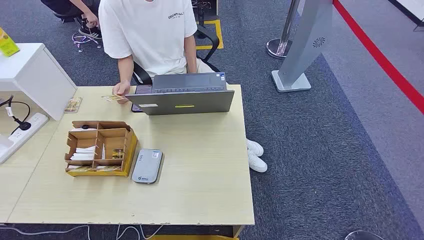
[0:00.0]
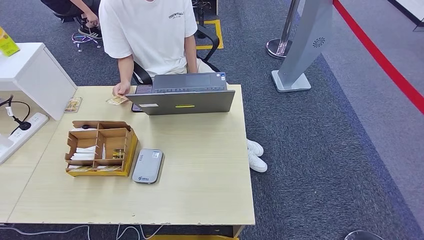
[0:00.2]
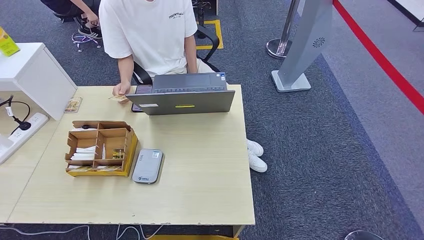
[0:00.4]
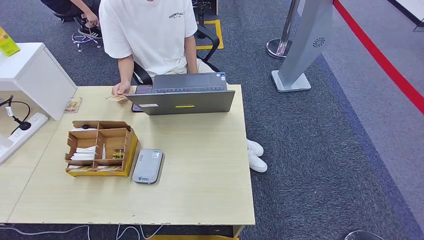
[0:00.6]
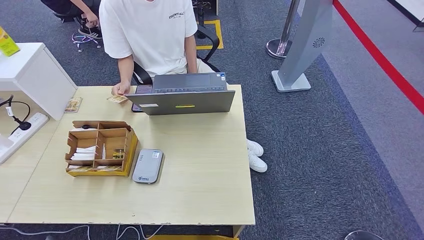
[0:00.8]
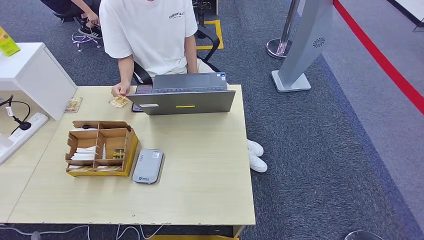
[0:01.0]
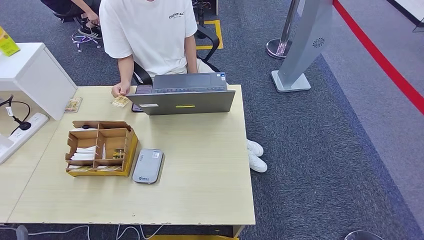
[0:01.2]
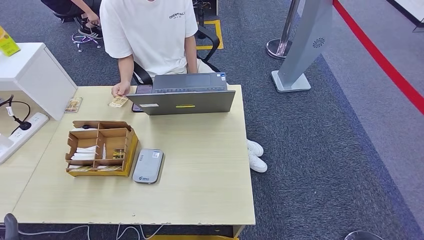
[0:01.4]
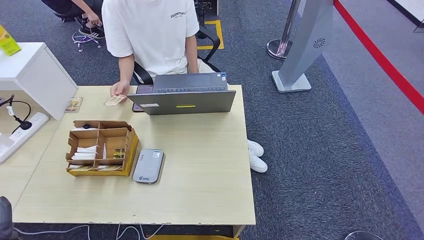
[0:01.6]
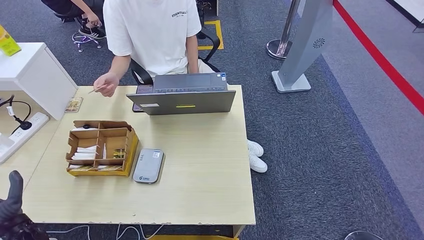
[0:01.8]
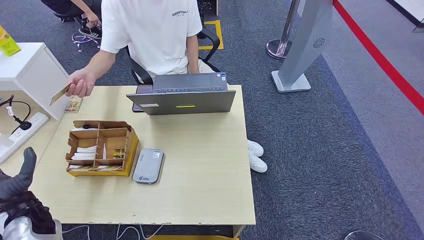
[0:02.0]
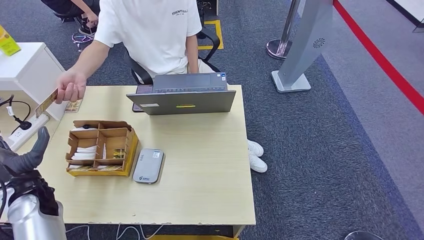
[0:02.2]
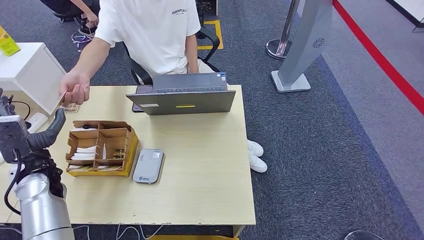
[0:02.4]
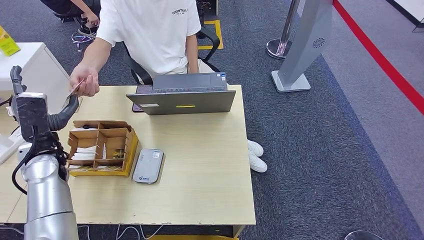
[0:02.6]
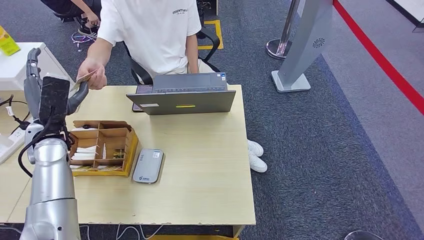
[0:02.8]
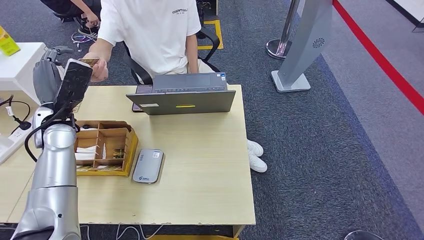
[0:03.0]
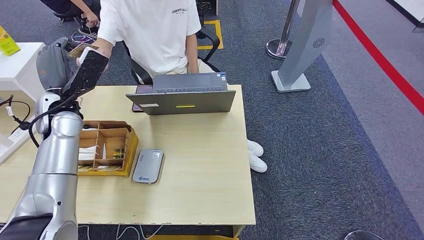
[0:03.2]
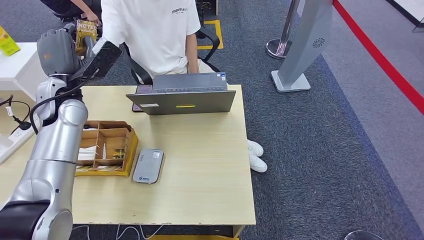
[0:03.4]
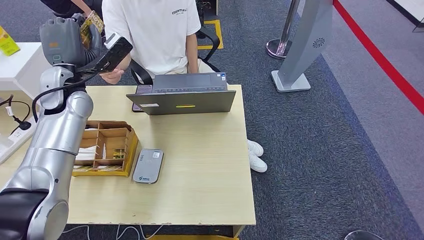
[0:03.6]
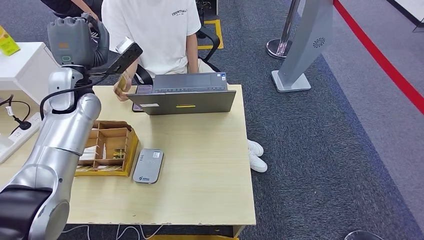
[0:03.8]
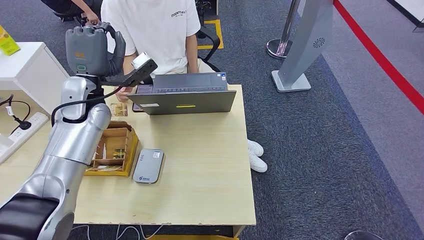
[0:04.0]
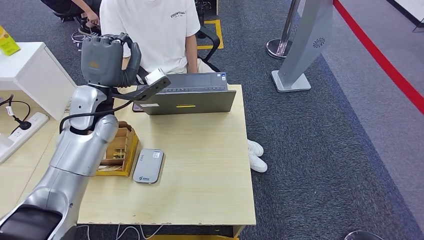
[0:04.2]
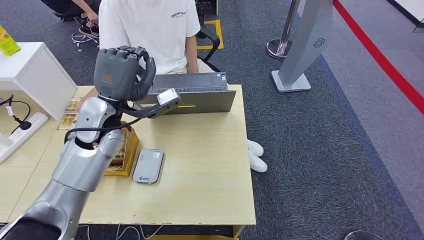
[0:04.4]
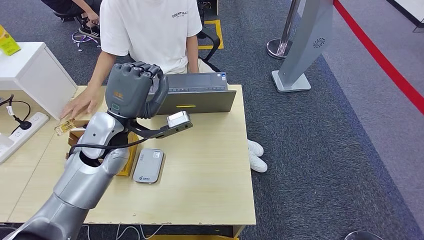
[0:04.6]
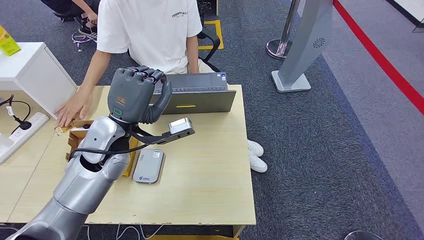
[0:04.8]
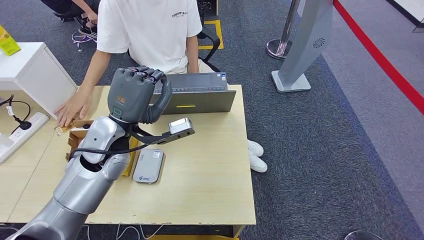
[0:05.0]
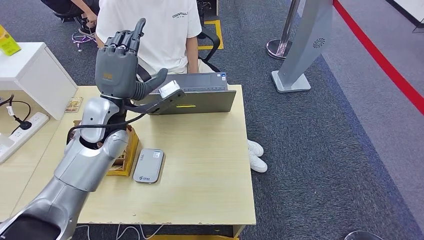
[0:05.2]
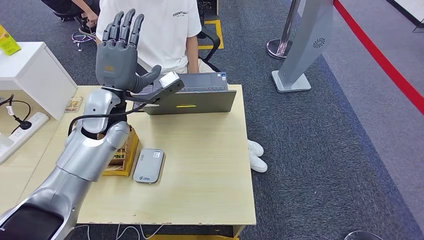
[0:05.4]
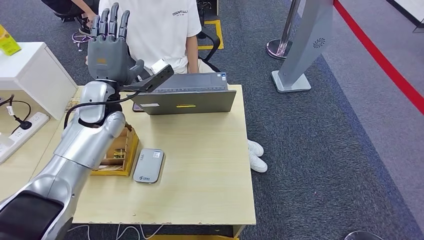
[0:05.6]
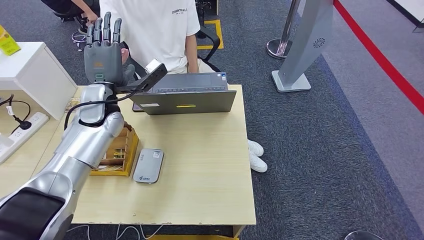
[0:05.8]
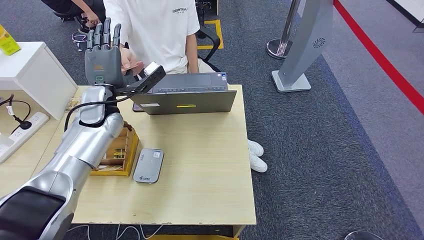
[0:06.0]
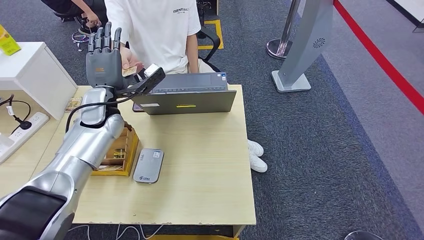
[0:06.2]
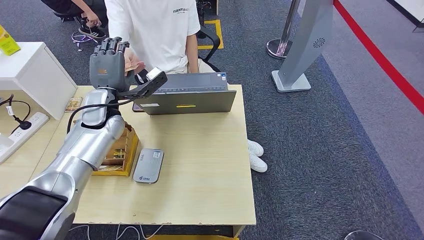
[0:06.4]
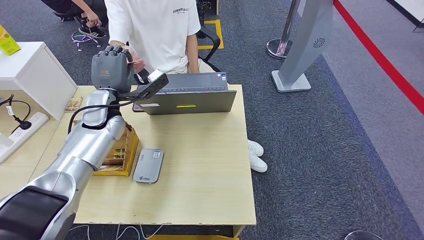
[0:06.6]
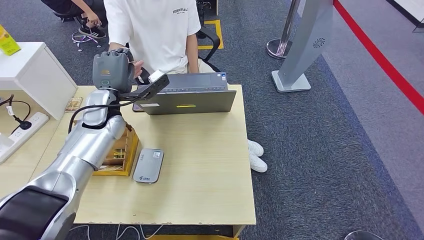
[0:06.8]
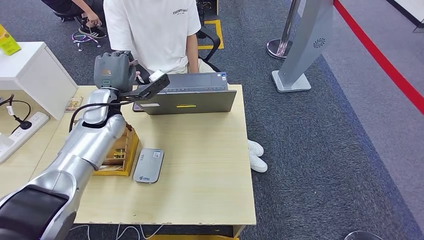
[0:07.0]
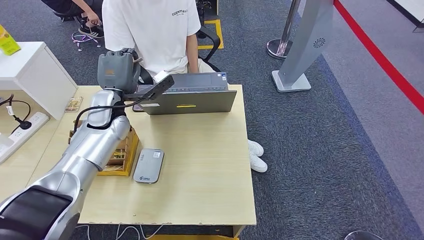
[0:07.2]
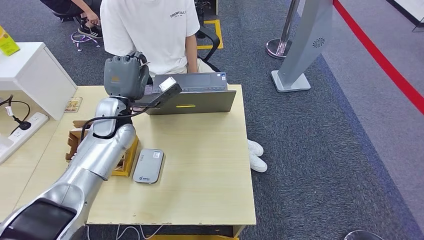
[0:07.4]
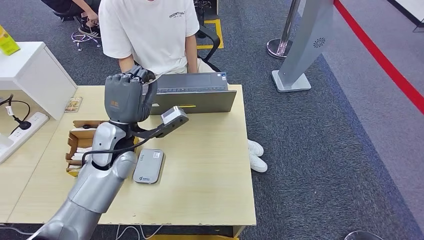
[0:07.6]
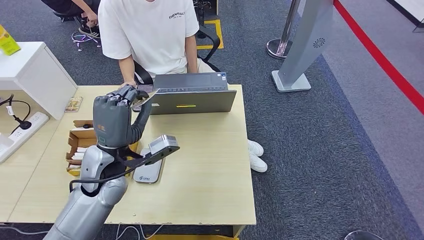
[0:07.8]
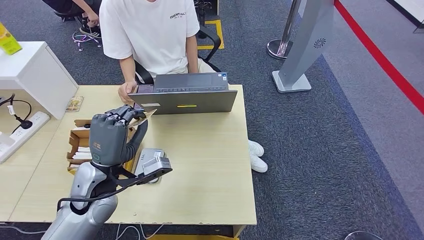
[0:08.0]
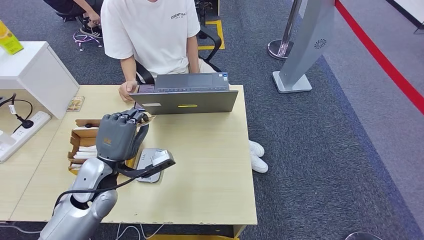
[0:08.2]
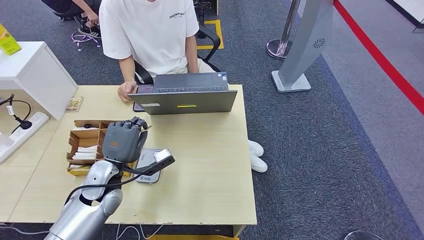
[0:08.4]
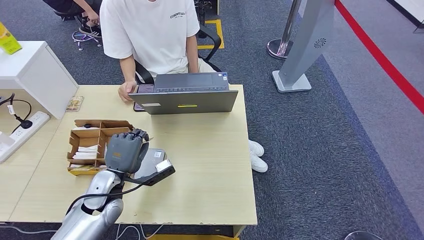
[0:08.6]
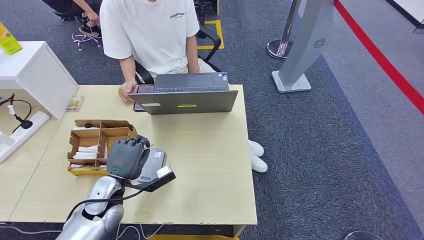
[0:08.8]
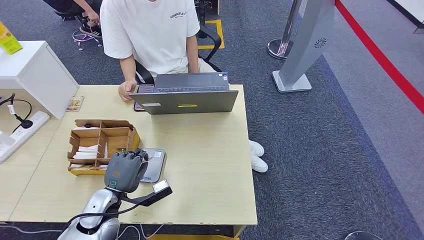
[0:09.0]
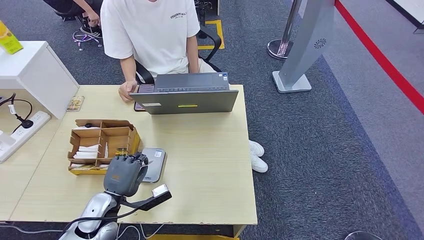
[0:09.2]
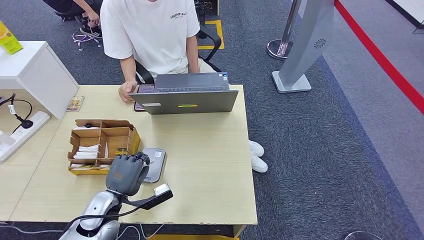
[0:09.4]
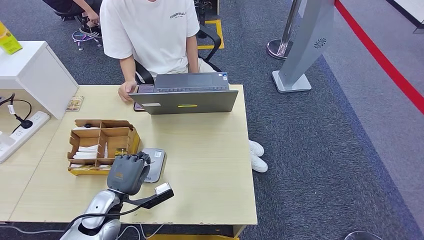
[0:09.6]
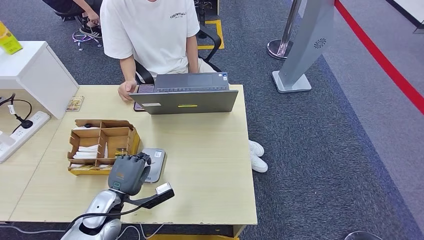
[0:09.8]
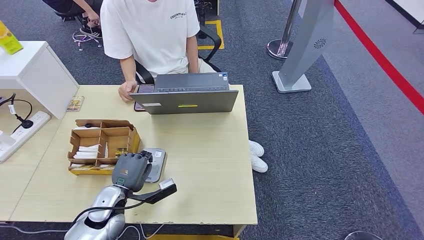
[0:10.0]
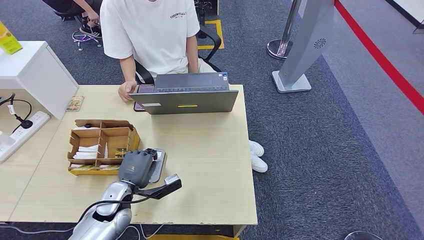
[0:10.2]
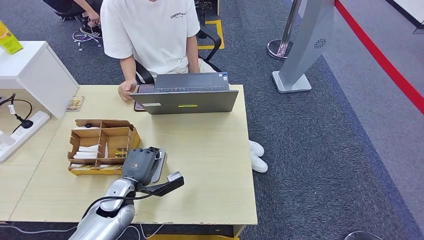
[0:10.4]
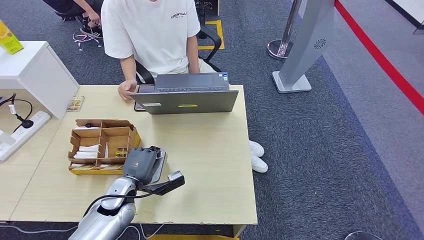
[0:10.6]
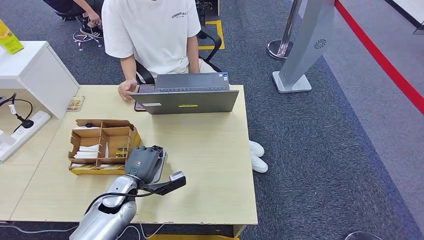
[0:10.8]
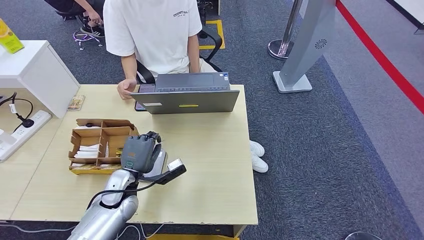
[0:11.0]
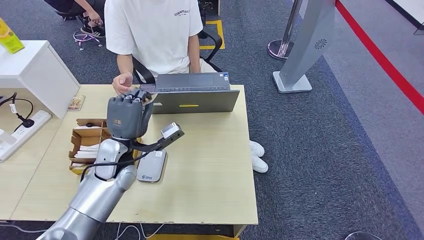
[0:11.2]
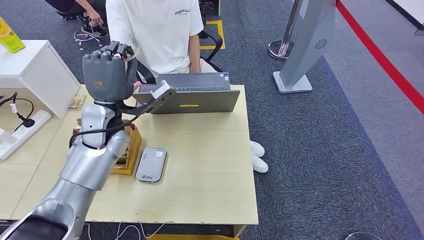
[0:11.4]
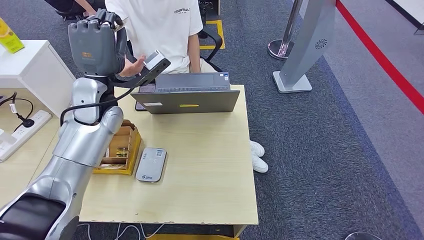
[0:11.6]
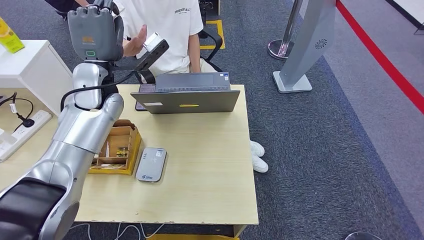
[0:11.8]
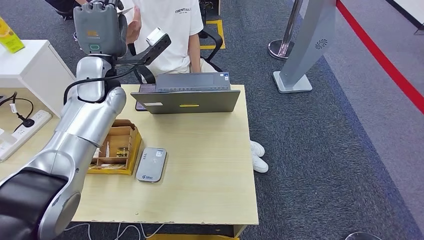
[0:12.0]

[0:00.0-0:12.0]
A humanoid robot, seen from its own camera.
Step, 0:00.0 to 0:02.8: Take the ID card from the person's hand.
Step, 0:03.0 to 0:09.8: Place the ID card on the card reader.
0:01.6 to 0:03.0: The left hand shifts roughly 35 cm forward and upward.
0:03.0 to 0:04.4: The left hand heads to the right, covering roughly 10 cm.
0:04.4 to 0:06.0: The left hand travels forward by approximately 5 cm.
0:06.0 to 0:07.6: The left hand moves backward and to the right, approximately 10 cm.
0:07.6 to 0:09.0: The left hand travels downward, backward and to the left by approximately 20 cm.
0:09.0 to 0:10.4: The hands make only small movements.

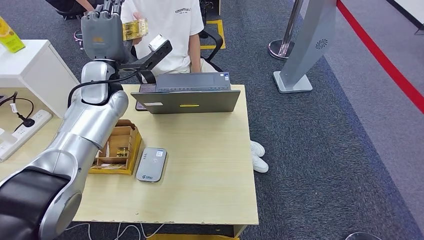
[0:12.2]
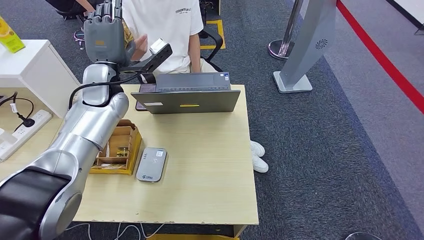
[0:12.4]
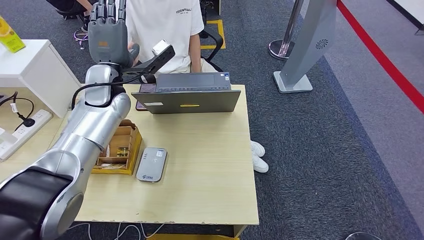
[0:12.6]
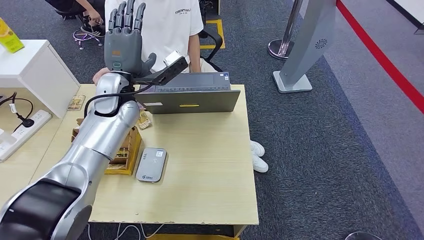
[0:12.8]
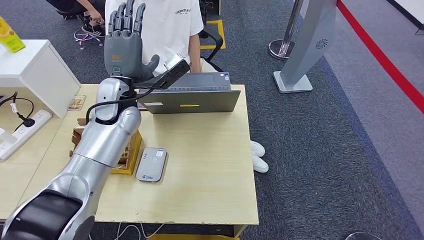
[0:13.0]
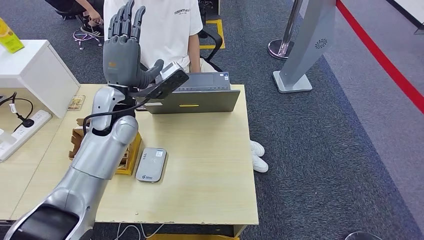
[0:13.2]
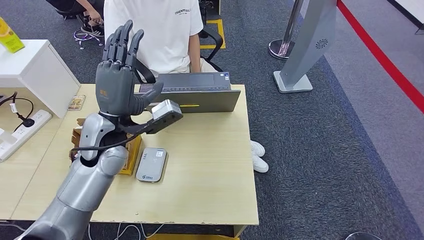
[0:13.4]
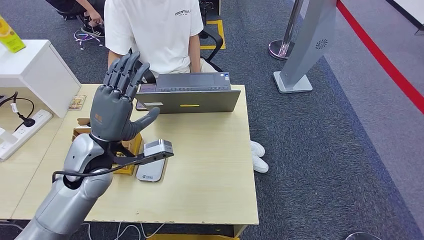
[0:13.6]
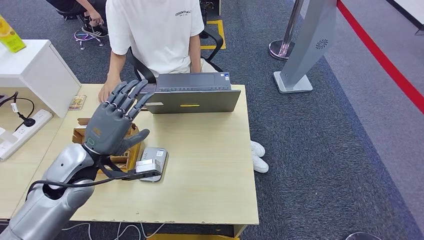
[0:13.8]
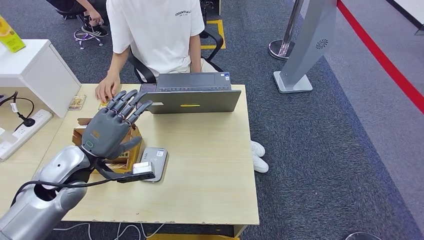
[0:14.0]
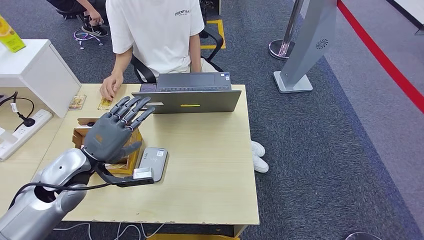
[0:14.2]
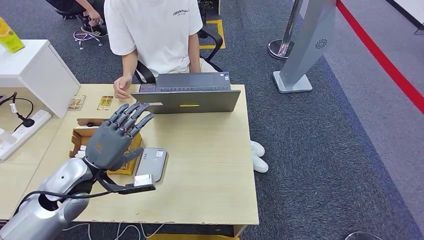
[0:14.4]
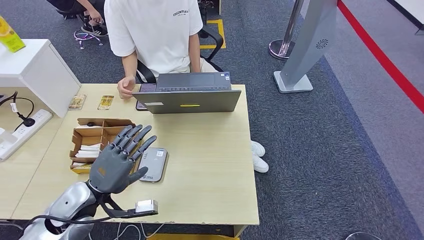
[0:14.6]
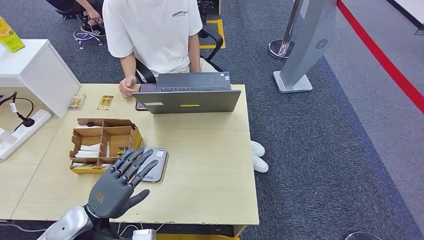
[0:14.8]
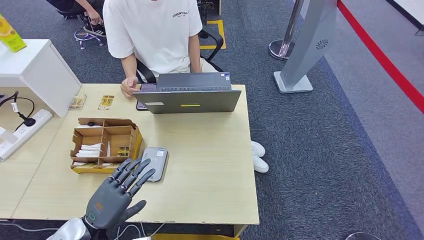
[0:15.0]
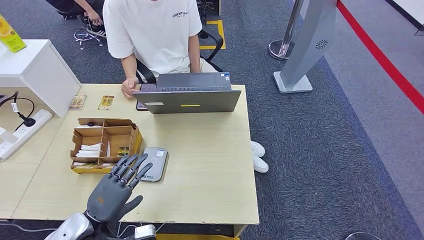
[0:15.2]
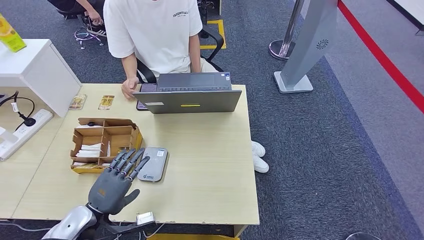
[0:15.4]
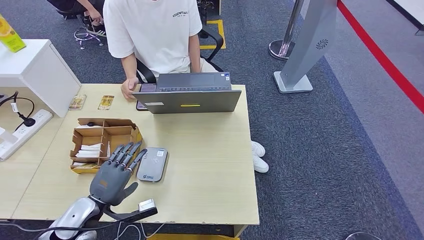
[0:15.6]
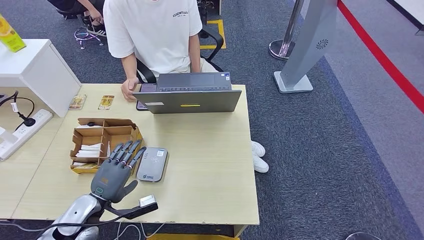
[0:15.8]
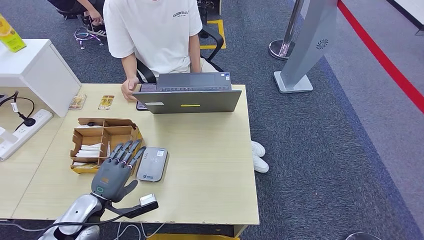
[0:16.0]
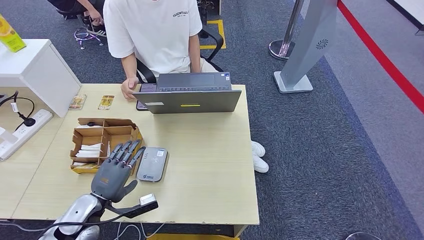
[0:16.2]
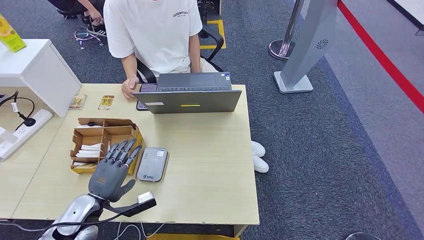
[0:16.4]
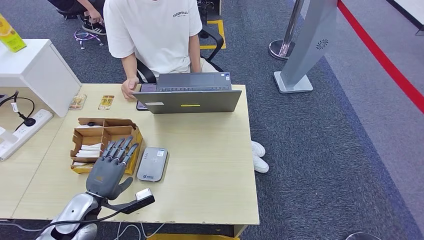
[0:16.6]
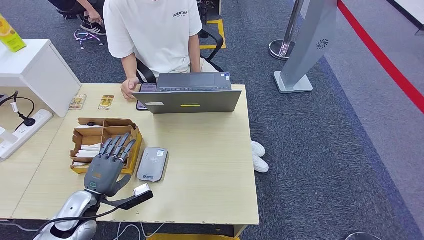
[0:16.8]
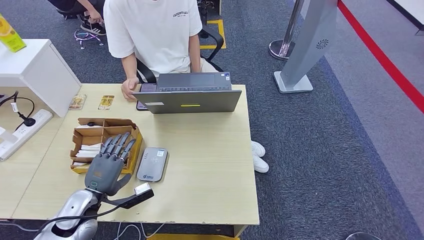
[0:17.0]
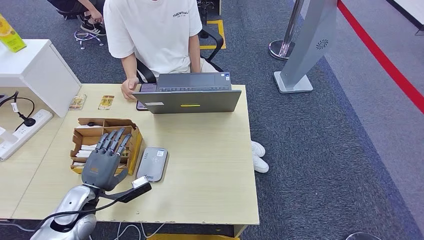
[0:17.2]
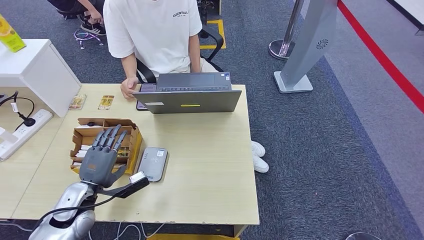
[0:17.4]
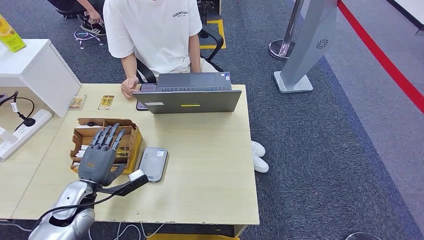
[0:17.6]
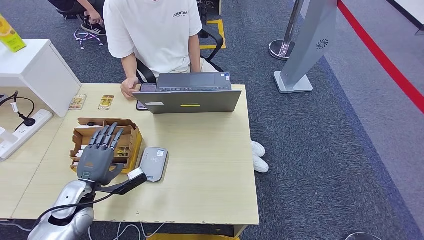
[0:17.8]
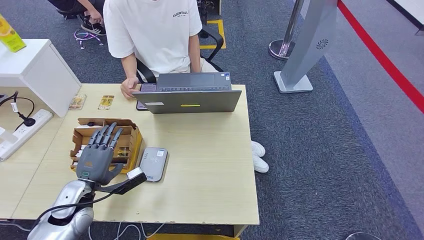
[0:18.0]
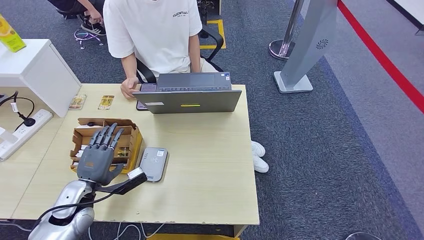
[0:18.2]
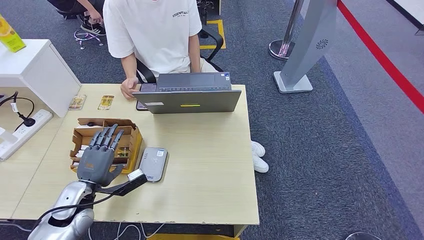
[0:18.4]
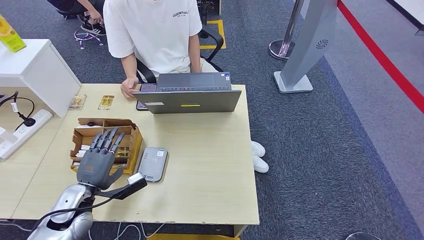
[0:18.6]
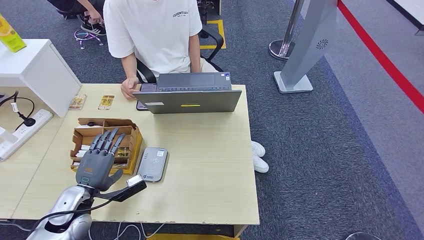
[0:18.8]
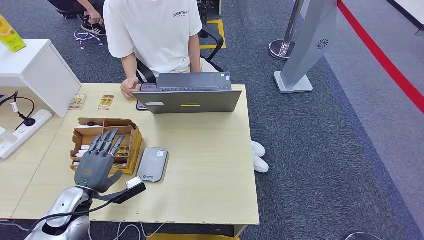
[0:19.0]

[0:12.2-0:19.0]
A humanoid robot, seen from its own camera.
0:12.2 to 0:13.6: The left hand goes roughly 15 cm backward and downward.
0:13.6 to 0:15.0: The left hand moves backward, downward and to the left, roughly 20 cm.
0:15.0 to 0:16.2: The left hand goes approximately 5 cm forward.
0:16.2 to 0:19.0: The hands move only a little.
